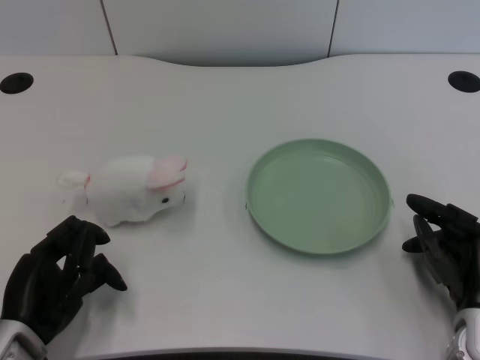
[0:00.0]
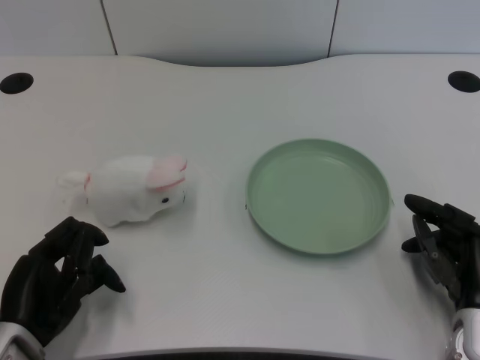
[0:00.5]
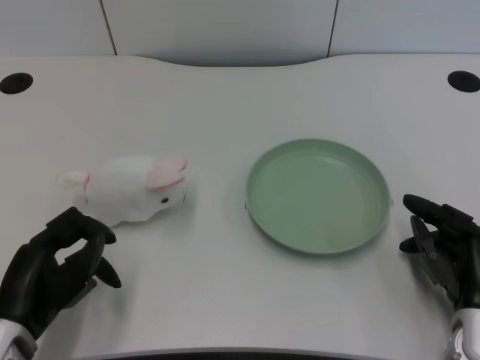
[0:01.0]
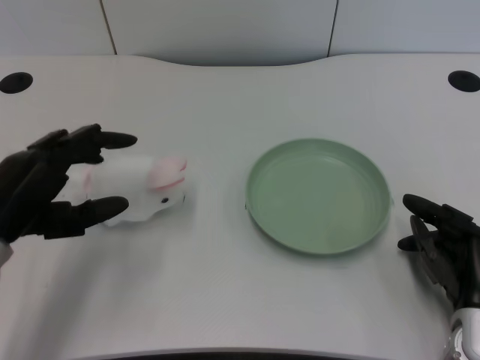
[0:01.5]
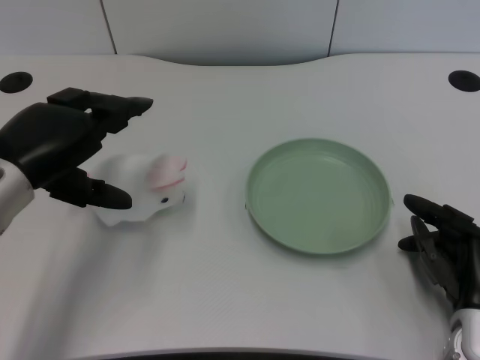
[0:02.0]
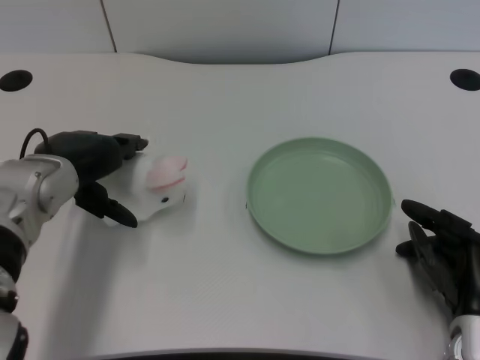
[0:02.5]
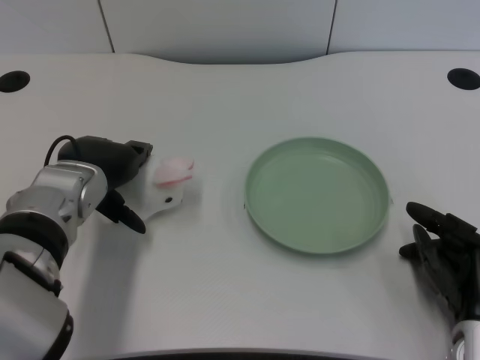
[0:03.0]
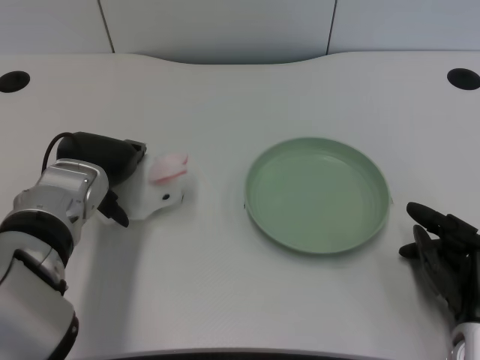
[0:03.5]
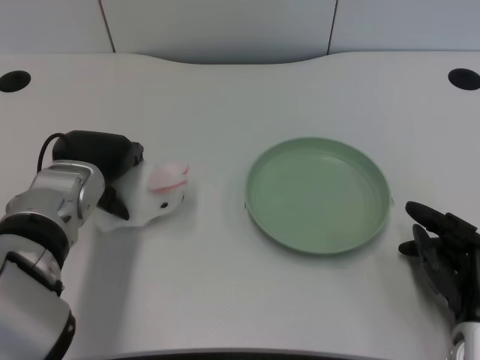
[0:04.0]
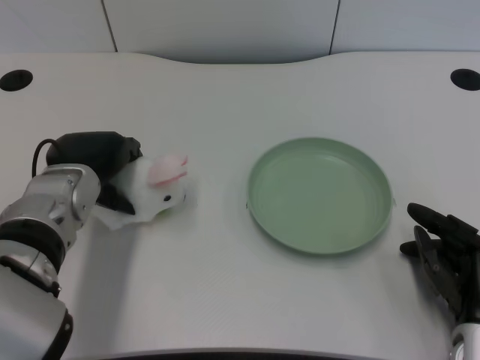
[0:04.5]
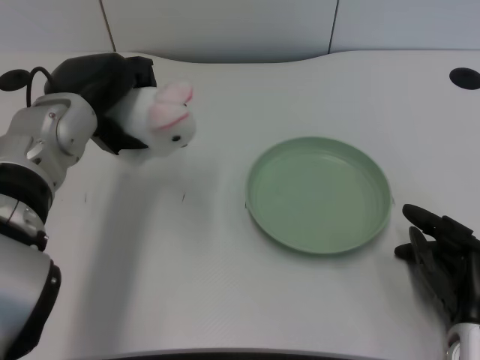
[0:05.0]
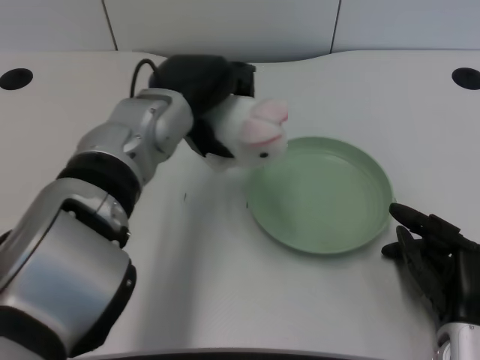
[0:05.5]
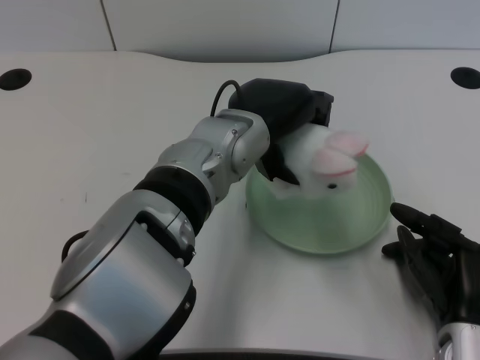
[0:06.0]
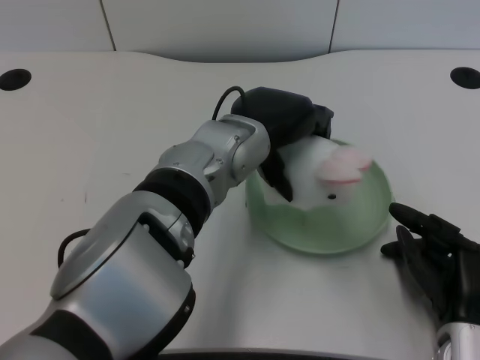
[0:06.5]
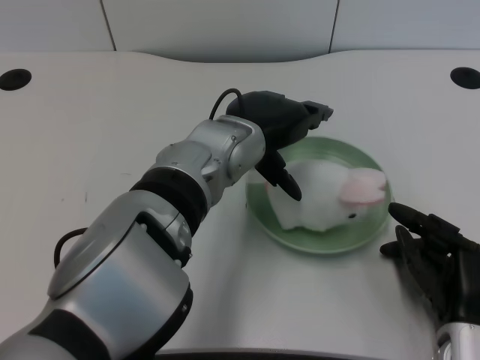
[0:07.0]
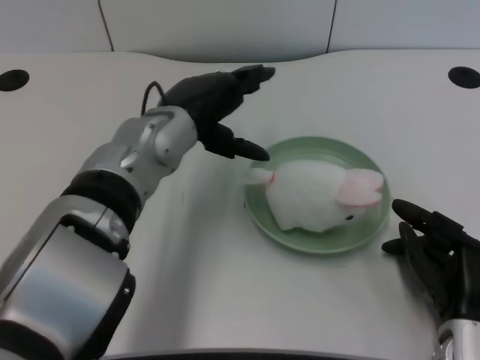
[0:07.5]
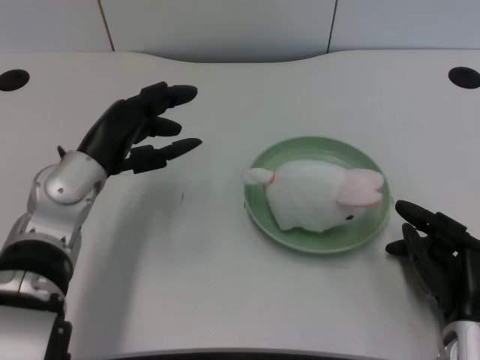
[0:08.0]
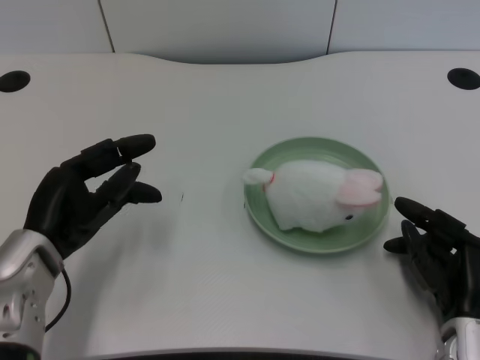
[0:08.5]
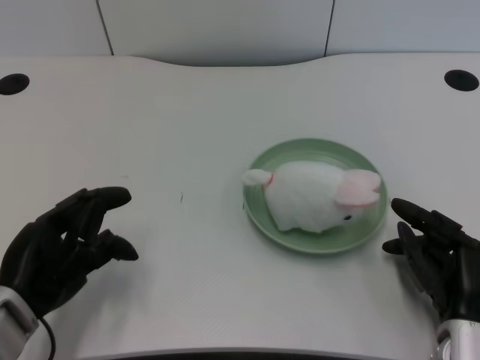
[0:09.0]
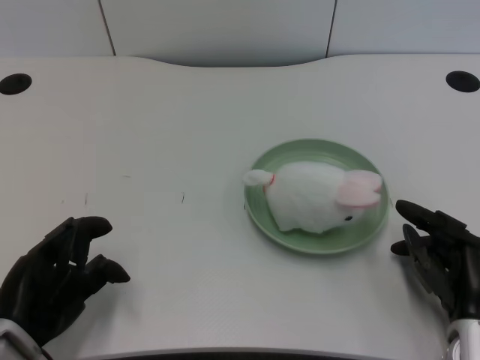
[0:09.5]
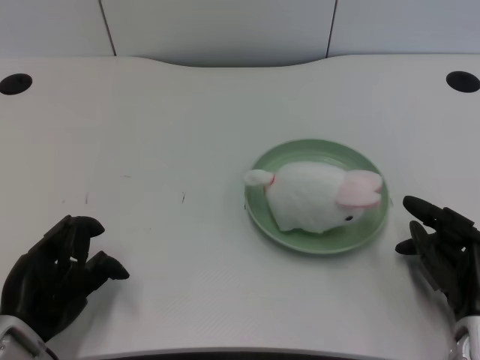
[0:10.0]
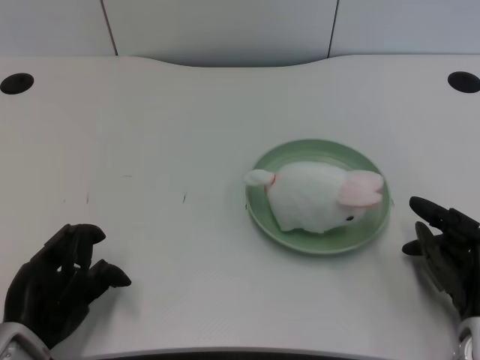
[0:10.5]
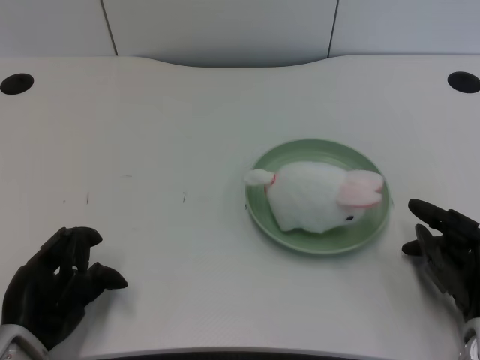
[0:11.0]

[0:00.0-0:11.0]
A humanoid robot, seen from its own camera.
Task of the whole recording: pick up the rabbit doll from the table and place it on the plate.
Step, 0:01.0 to 0:04.5: Grasp the rabbit doll with the left gripper.
Step, 0:05.0 to 0:06.5: Place the rabbit doll into the plate with the left gripper.
0:02.0 to 0:03.5: The left hand is displaced to the right and downward by some 10 cm.
0:03.5 to 0:05.5: The left hand heads to the right and upward, covering about 10 cm.
0:07.5 to 0:09.0: The left hand goes about 25 cm to the left, backward and downward.
0:09.0 to 0:11.0: The hands make only small movements.

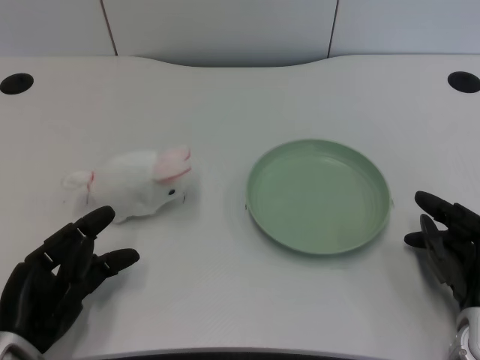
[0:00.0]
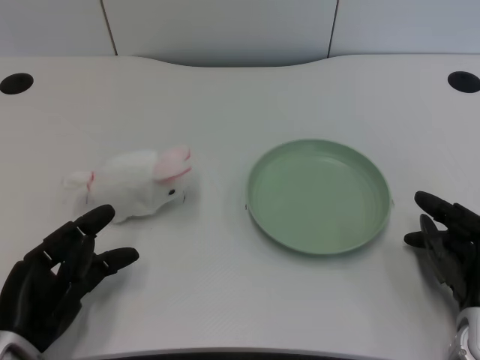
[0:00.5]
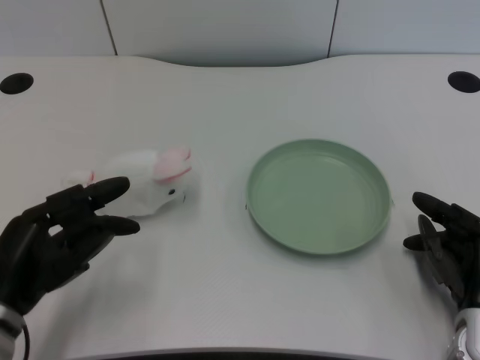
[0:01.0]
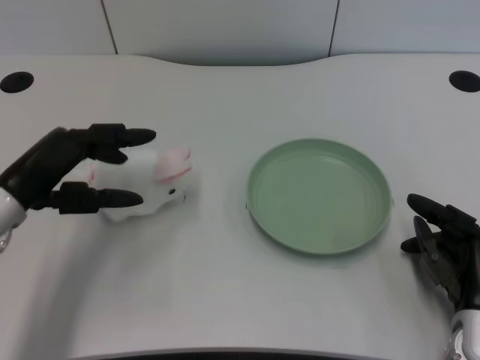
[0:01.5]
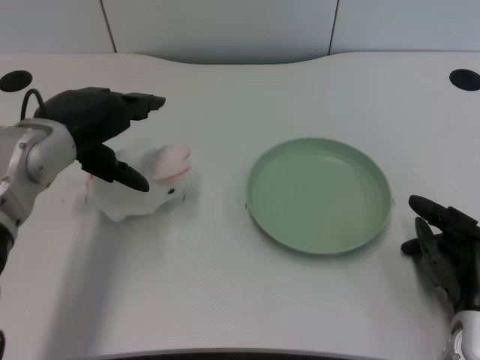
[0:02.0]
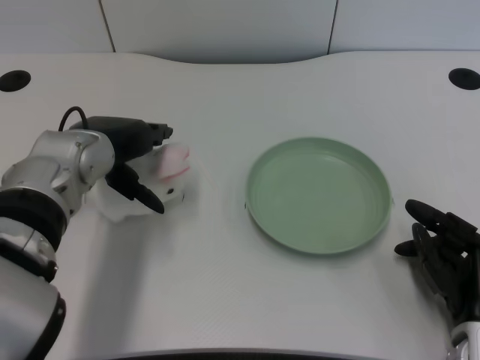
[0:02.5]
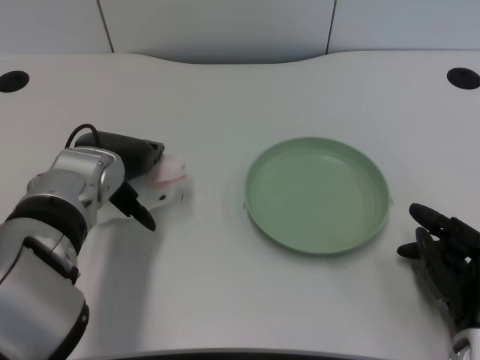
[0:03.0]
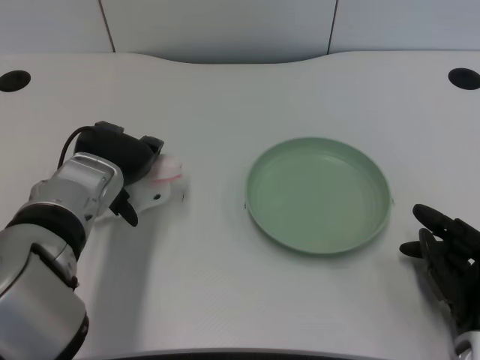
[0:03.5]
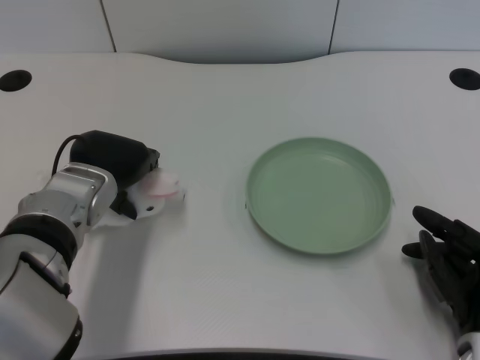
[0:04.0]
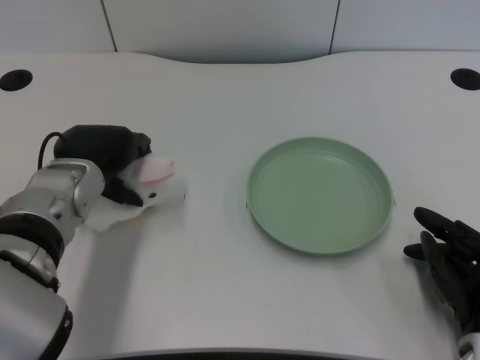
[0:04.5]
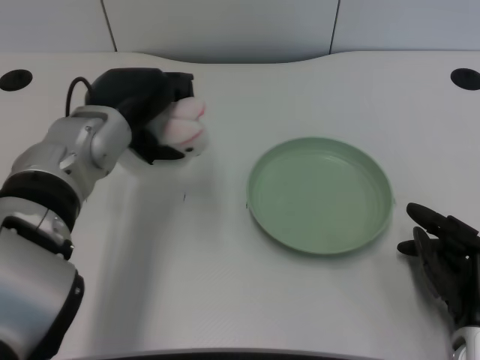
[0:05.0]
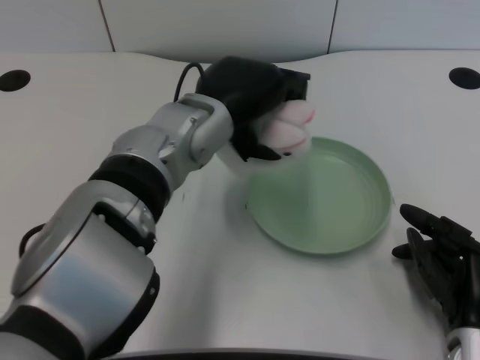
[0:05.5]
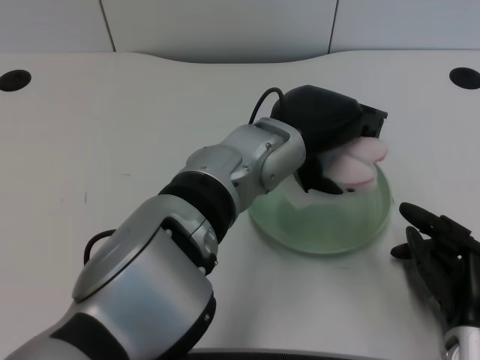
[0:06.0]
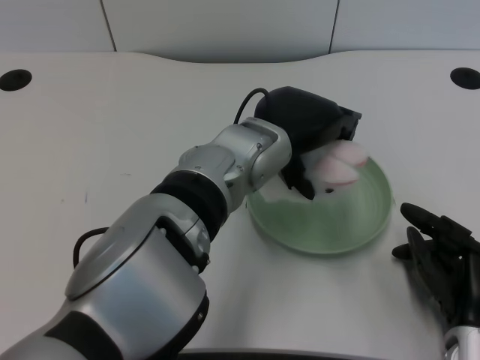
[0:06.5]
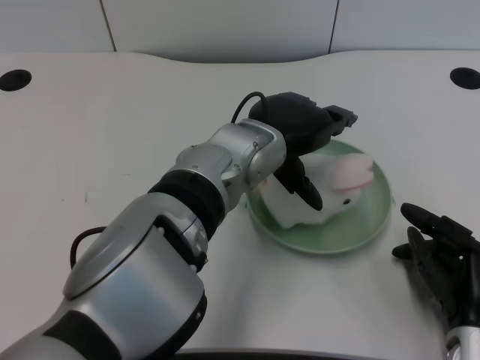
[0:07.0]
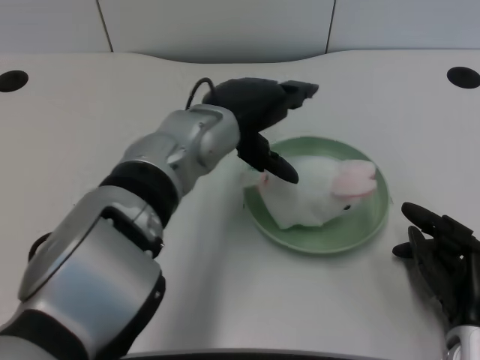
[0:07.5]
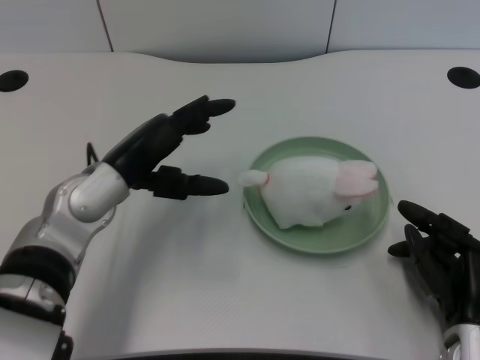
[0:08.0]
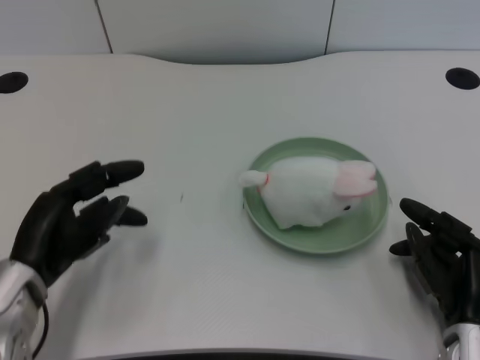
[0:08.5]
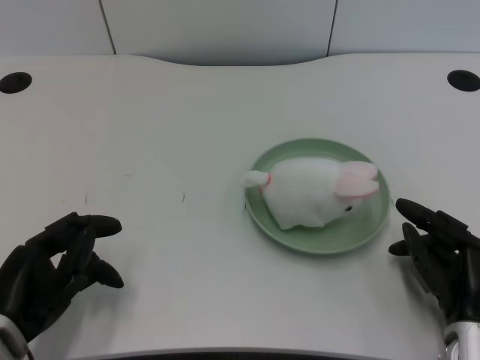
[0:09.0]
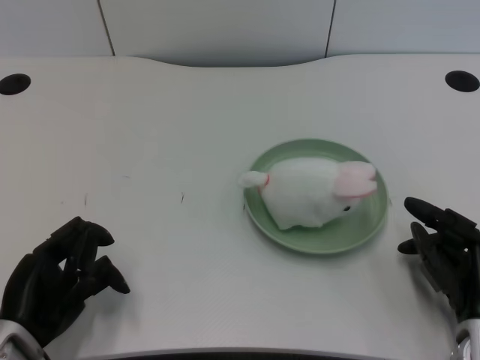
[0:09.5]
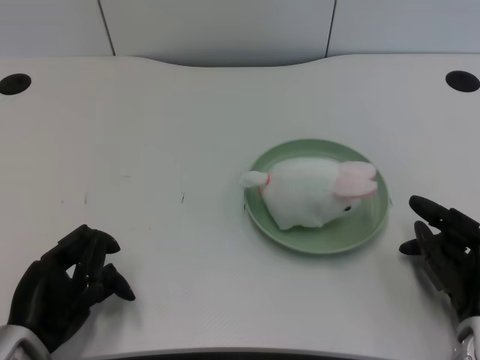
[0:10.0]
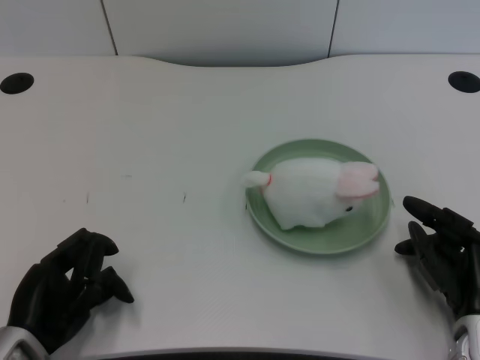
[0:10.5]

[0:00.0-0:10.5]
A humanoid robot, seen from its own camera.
Task of the whole recording: pick up the rabbit doll from the table and place it on the plate.
Step, 0:01.0 to 0:04.5: Grasp the rabbit doll with the left gripper.
Step, 0:05.0 to 0:06.5: Place the rabbit doll into the plate with the left gripper.
0:02.0 to 0:04.0: The left hand moves downward, approximately 5 cm.
0:04.0 to 0:06.5: The left hand travels to the right by about 15 cm.
0:06.5 to 0:08.5: The left hand moves to the left and downward, approximately 25 cm.
0:08.5 to 0:10.5: The left hand is displaced backward by approximately 5 cm.

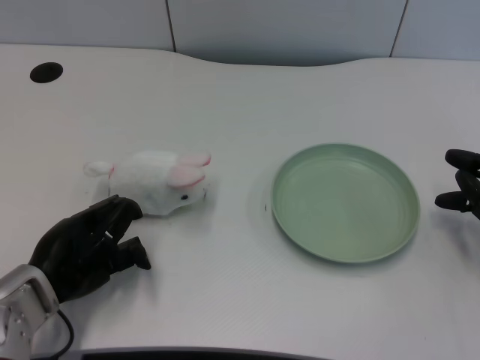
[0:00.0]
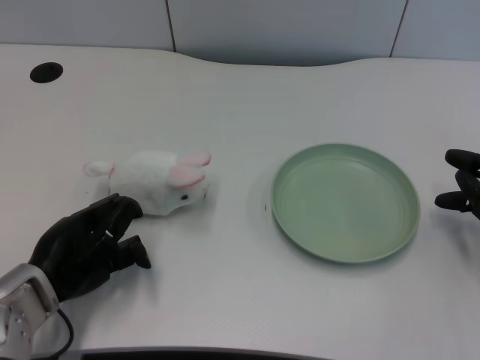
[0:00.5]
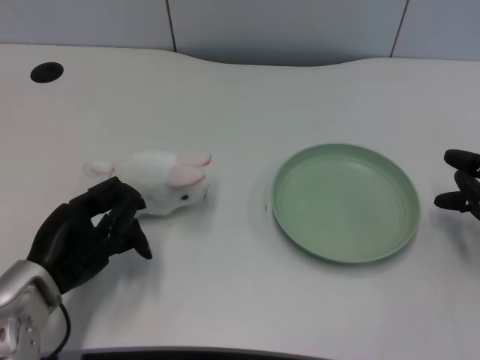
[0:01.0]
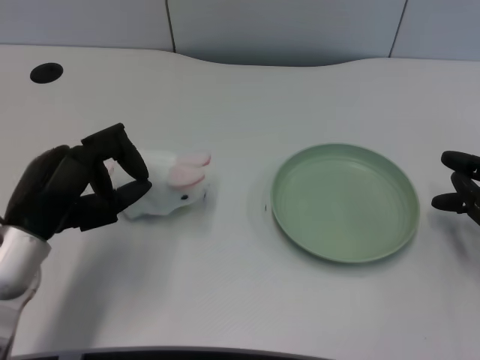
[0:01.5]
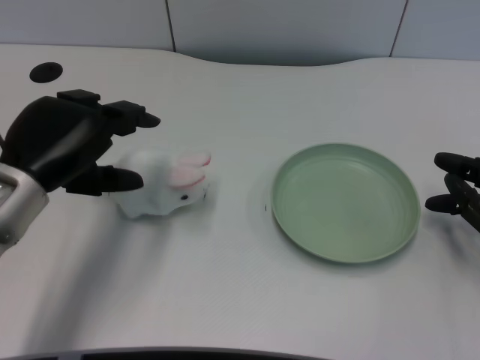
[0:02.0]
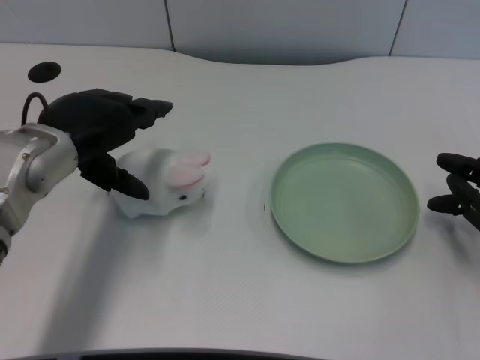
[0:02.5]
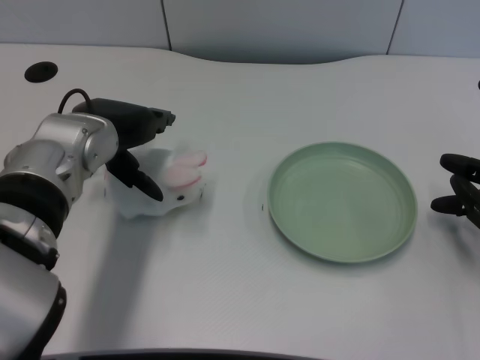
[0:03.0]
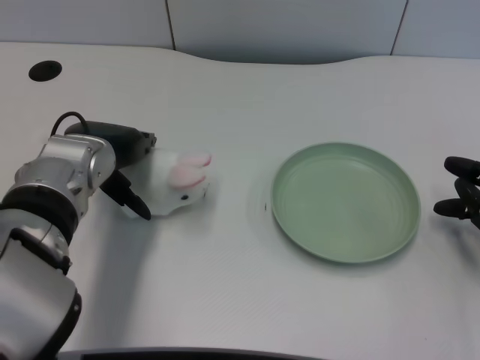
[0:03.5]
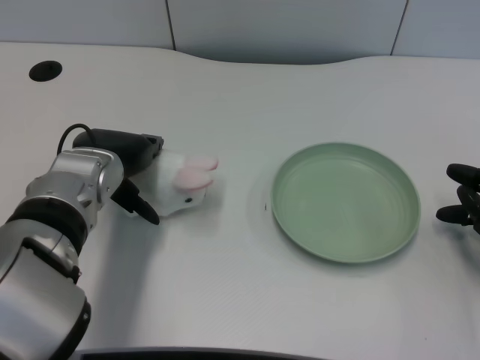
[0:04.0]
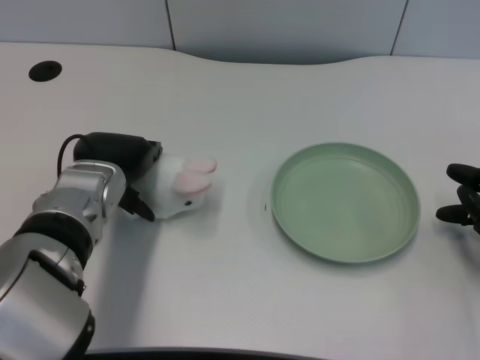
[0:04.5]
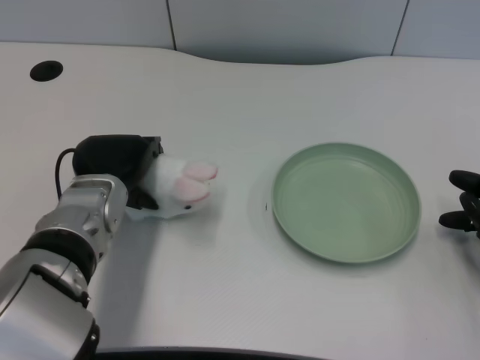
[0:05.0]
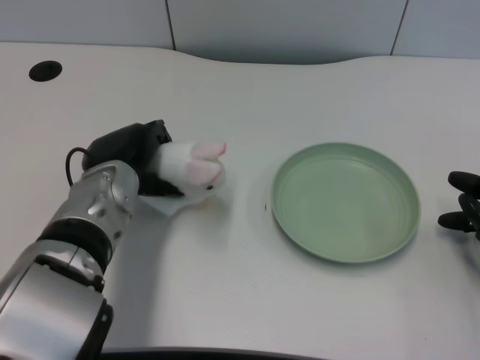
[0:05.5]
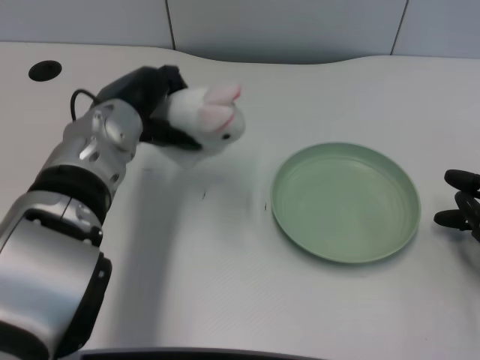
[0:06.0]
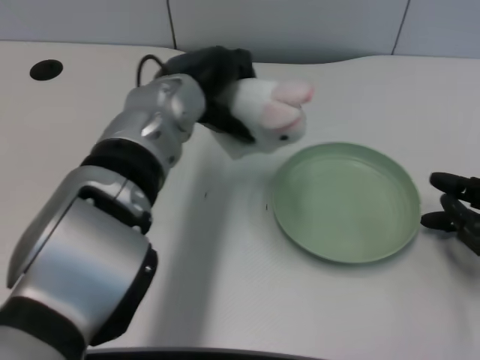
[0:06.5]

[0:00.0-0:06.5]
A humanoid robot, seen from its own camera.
Task of the whole recording: pick up the rabbit doll from the table and place it on the plate.
Step, 0:01.0 to 0:05.5: Grasp the rabbit doll with the left gripper.
0:02.0 to 0:04.5: The left hand is displaced to the right by some 5 cm.
0:04.5 to 0:06.5: The left hand moves to the right and upward, about 10 cm.
